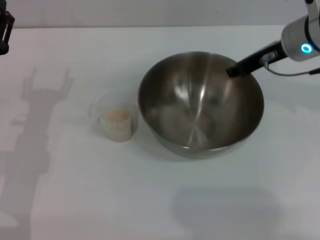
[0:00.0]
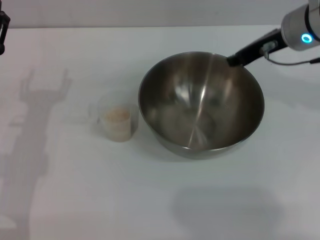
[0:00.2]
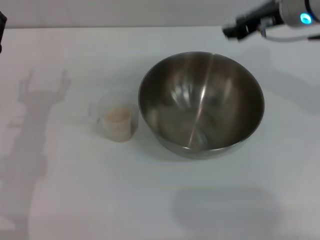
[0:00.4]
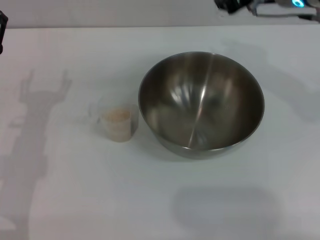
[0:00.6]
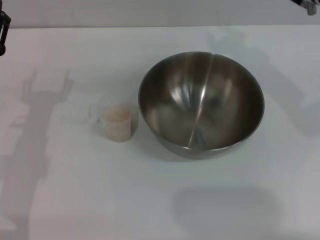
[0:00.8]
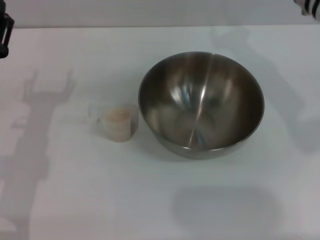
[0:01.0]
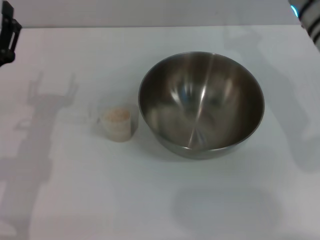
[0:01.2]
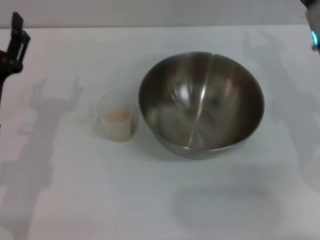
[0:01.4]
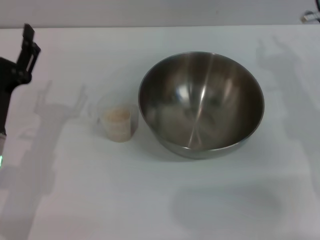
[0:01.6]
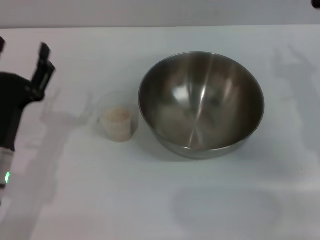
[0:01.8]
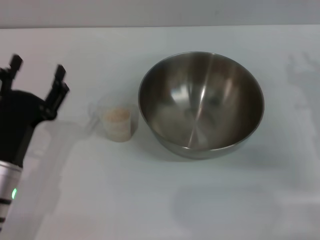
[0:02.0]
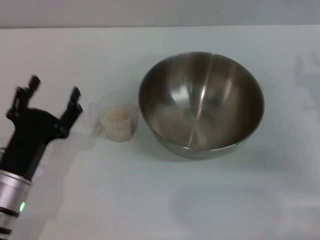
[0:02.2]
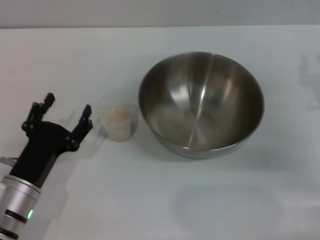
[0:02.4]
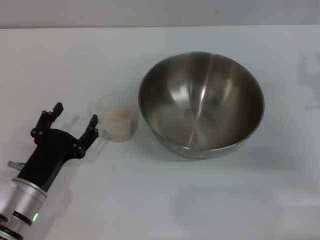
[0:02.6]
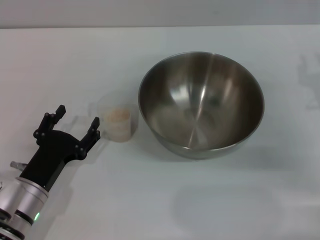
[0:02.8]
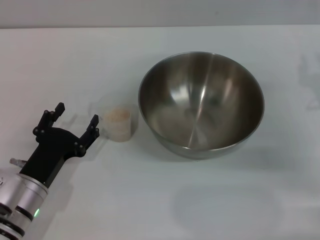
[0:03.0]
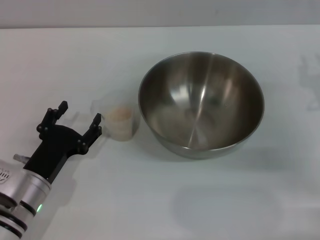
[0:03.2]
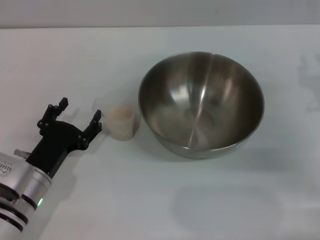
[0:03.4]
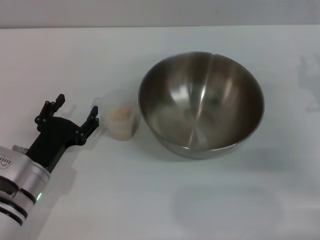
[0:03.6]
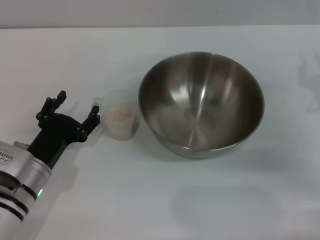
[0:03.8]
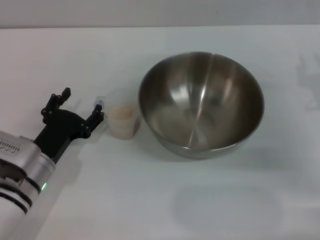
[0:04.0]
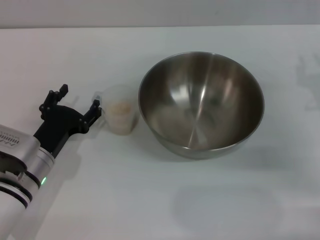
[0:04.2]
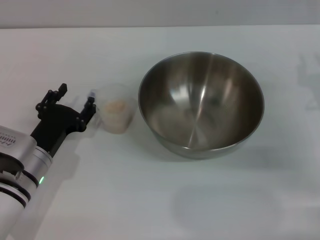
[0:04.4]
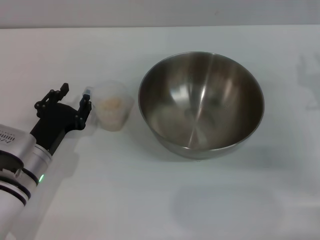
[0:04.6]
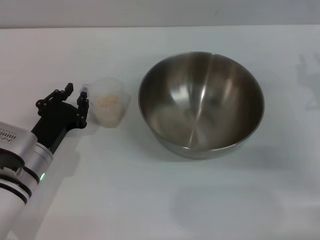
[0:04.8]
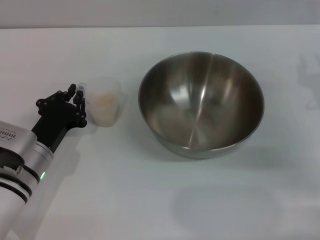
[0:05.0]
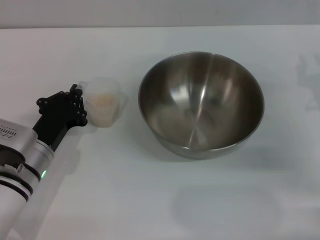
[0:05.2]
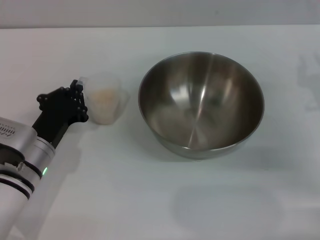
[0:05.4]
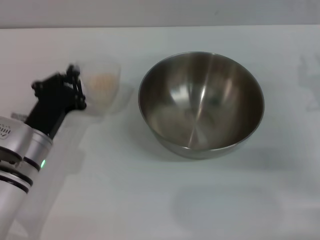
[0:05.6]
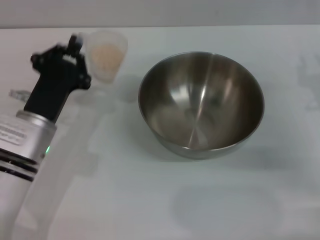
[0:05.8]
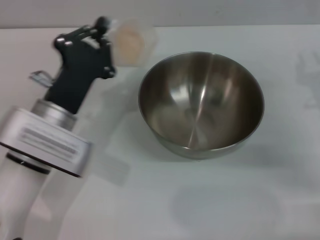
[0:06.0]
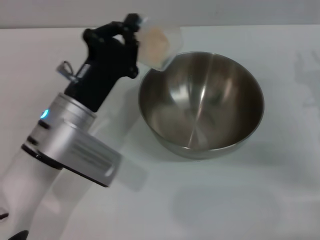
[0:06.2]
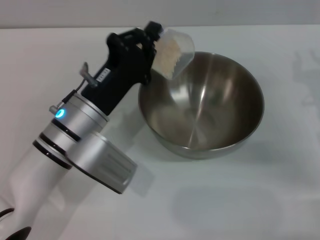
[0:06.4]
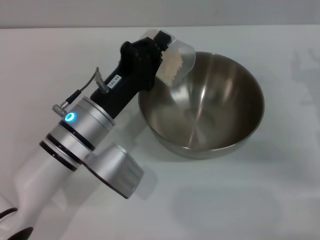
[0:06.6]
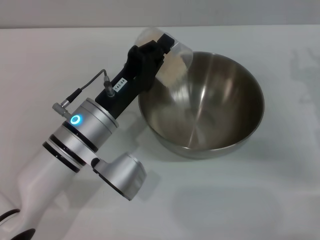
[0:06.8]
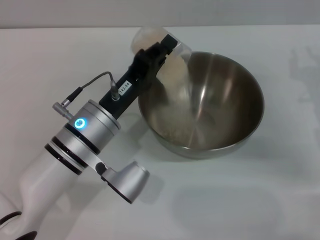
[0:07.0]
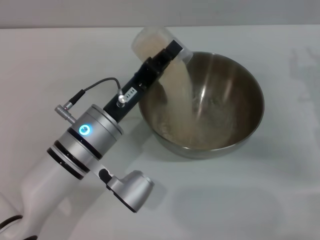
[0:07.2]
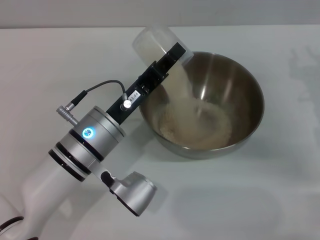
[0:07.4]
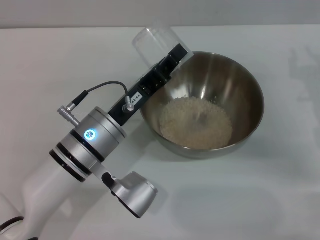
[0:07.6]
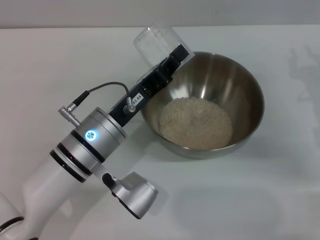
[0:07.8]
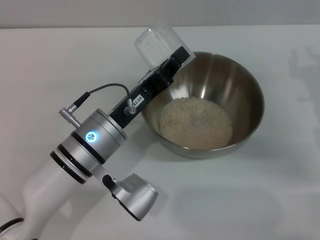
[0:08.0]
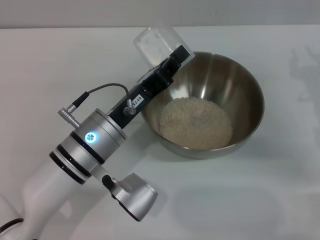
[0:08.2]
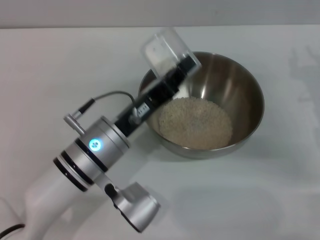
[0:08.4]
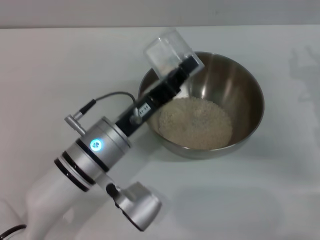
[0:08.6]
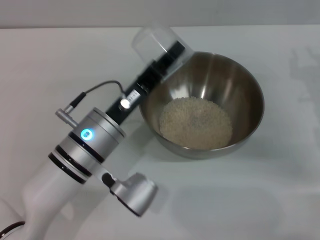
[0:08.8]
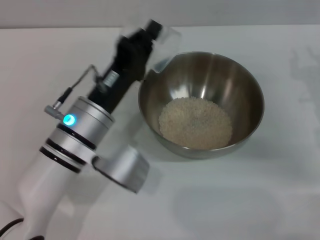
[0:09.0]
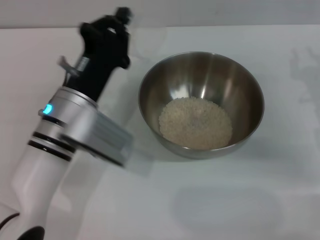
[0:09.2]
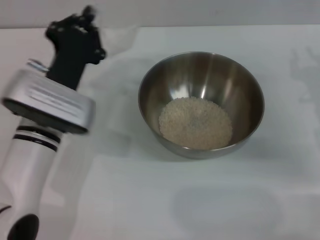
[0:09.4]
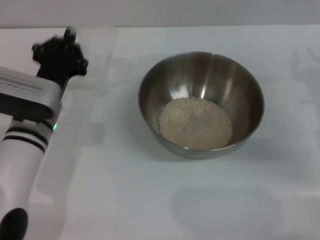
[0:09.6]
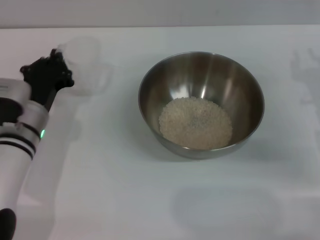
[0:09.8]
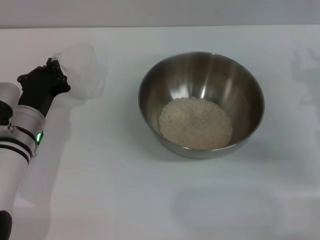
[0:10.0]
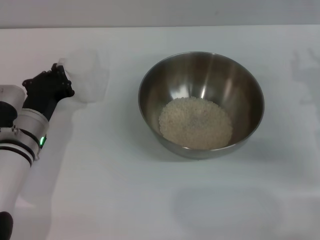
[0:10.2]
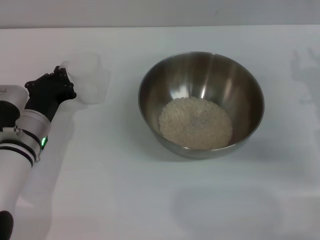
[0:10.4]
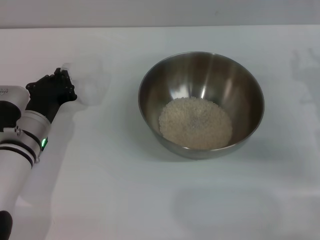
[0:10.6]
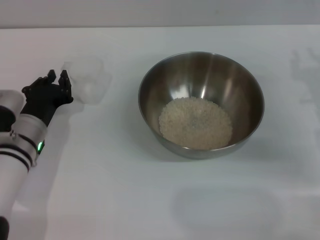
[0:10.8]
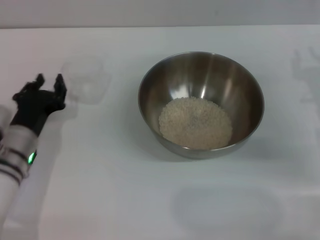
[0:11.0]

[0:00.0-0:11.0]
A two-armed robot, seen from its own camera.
Task of the whole recording: Place the bowl in the middle of the table with one hand and pour the rice from the grain cup into it with the other hand.
Step, 0:00.6 to 0:05.8: Pick up the cup with rice in it with the left gripper.
Step, 0:06.2 to 0:07.6: Pour the rice from the cup into the bowl with the left gripper.
Step, 0:08.0 to 0:11.0: Place the cup on the table with the left gripper.
0:00.0 to 0:01.6: The right gripper travels backward by approximately 5 cm.
0:01.6 to 0:03.2: The left gripper moves downward, some 5 cm, while the right gripper is displaced to the right by approximately 5 cm.
0:03.2 to 0:04.8: The left gripper closes.
0:04.8 to 0:06.2: The left gripper heads upward and to the right, covering some 10 cm, and closes.
0:07.8 to 0:09.4: The left gripper ends up about 5 cm from where it was.
0:09.4 to 0:11.0: The left gripper is displaced to the left and downward by approximately 10 cm.

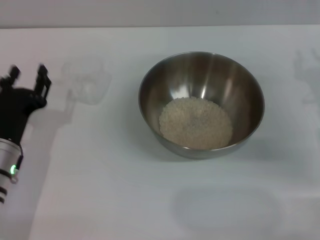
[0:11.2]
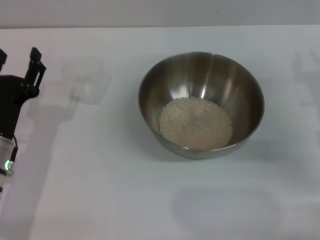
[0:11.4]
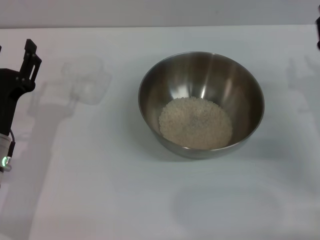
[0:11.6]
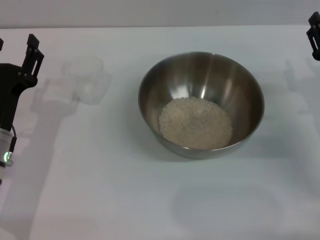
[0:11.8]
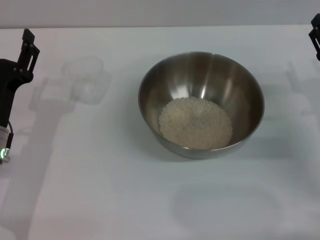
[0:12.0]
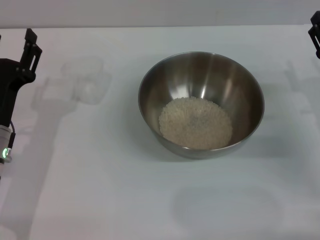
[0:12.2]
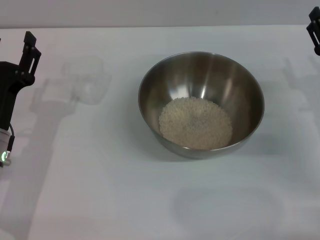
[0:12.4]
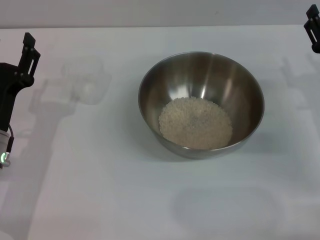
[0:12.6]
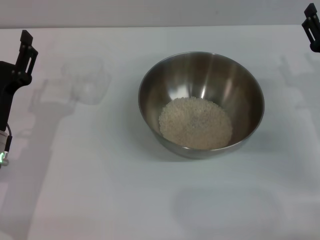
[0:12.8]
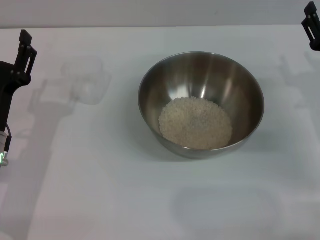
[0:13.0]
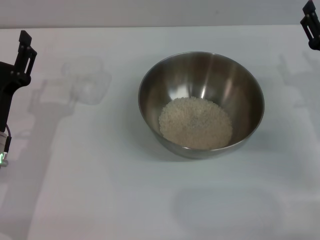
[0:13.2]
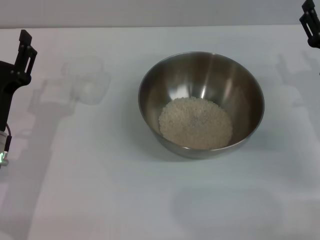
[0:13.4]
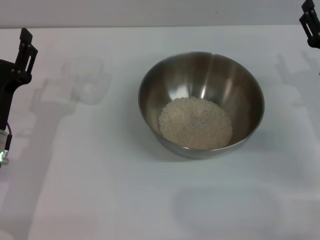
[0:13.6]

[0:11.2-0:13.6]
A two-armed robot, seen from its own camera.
Task of the whole recording: Place the bowl in the middle of the table with one hand and pour the rice from the grain cup into it with the other hand.
0:11.2 to 0:12.4: The left gripper opens its fingers.
0:12.4 to 0:13.6: The grippers stay close to where they were, moving slightly.

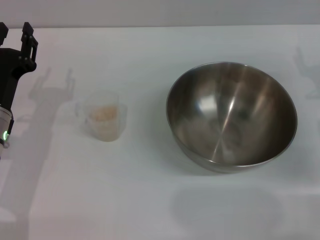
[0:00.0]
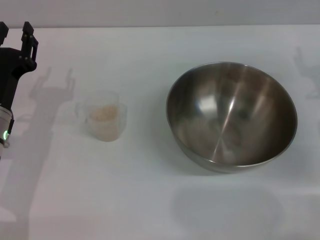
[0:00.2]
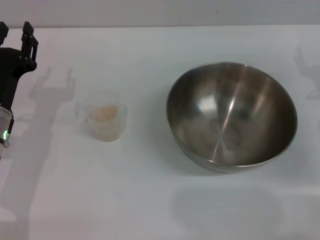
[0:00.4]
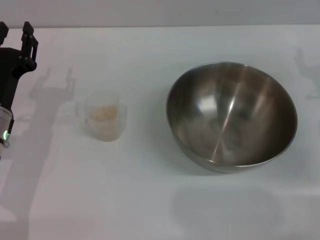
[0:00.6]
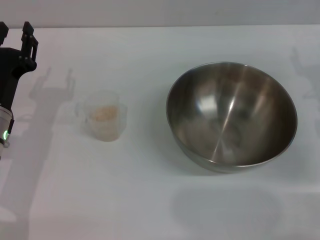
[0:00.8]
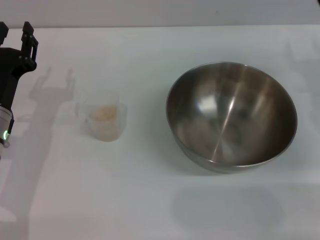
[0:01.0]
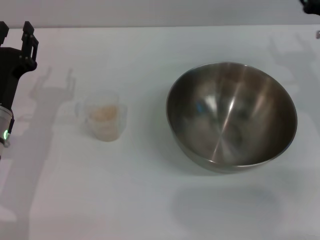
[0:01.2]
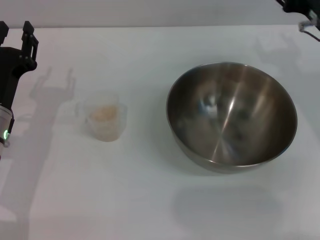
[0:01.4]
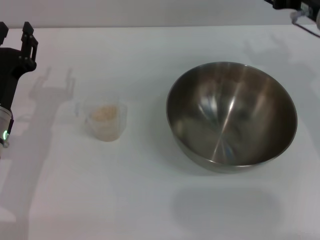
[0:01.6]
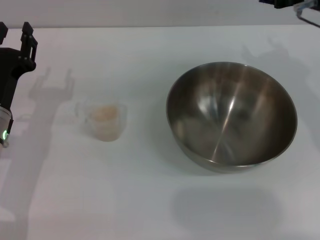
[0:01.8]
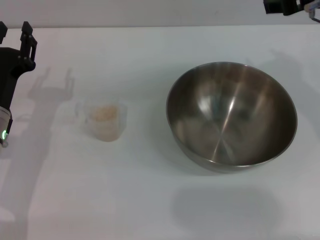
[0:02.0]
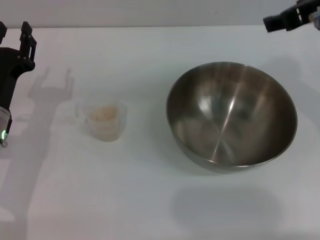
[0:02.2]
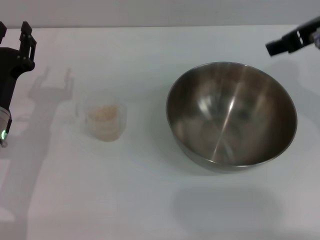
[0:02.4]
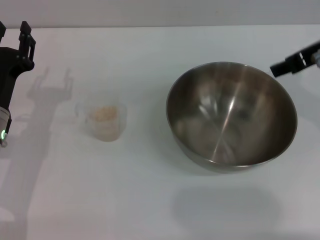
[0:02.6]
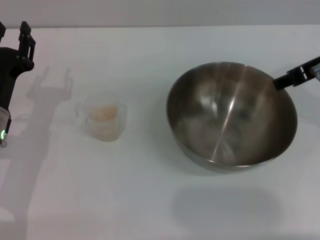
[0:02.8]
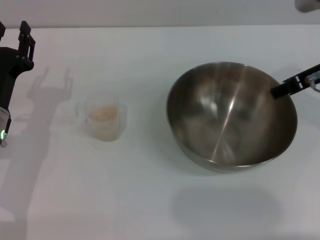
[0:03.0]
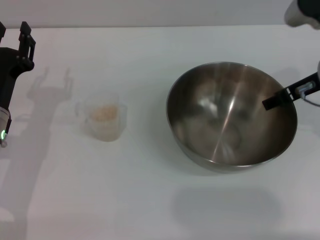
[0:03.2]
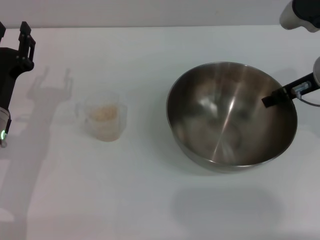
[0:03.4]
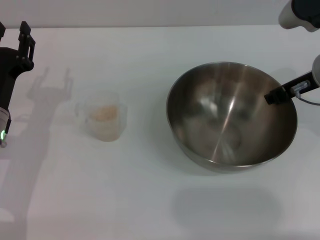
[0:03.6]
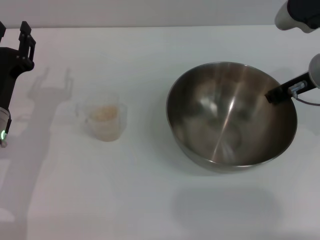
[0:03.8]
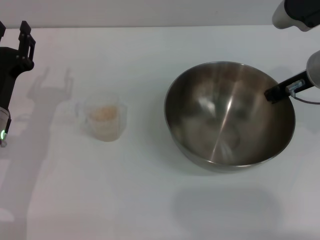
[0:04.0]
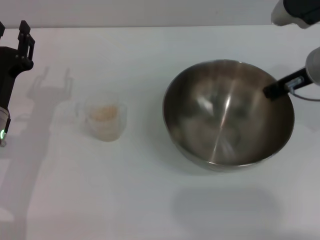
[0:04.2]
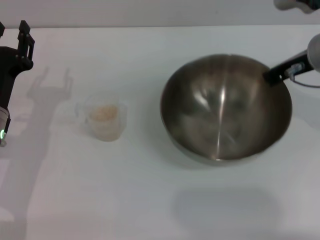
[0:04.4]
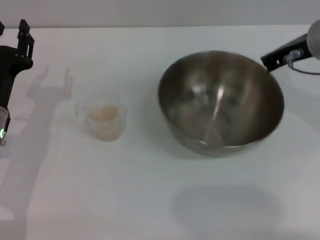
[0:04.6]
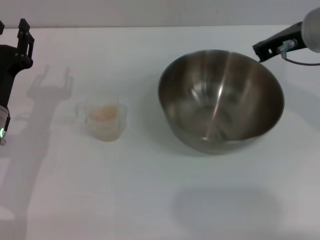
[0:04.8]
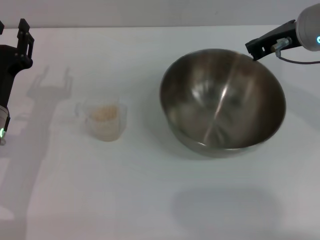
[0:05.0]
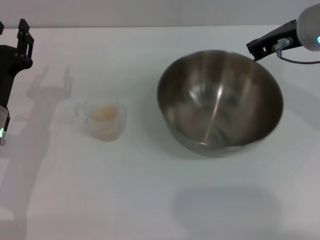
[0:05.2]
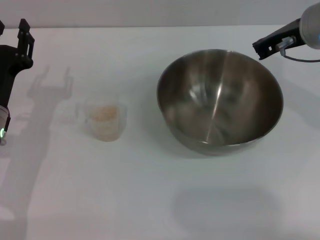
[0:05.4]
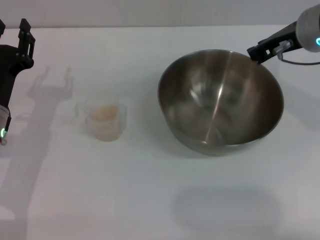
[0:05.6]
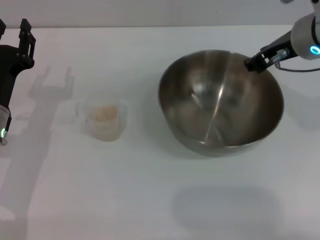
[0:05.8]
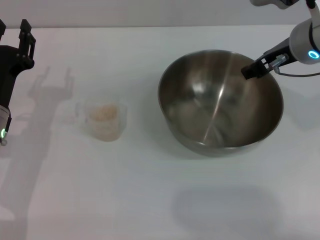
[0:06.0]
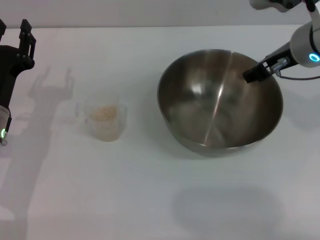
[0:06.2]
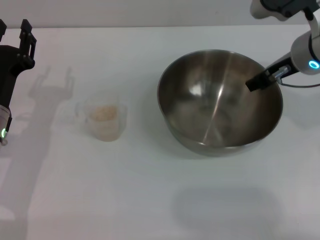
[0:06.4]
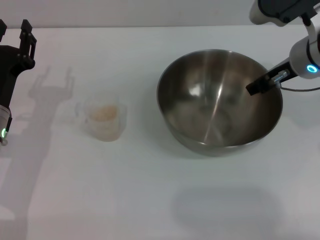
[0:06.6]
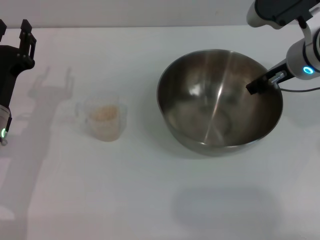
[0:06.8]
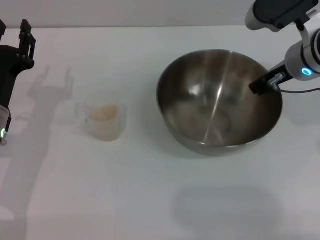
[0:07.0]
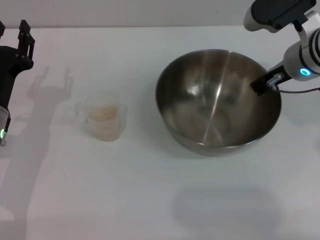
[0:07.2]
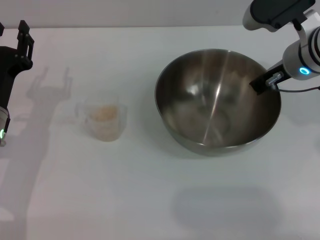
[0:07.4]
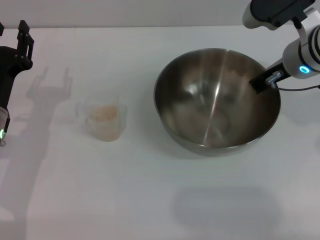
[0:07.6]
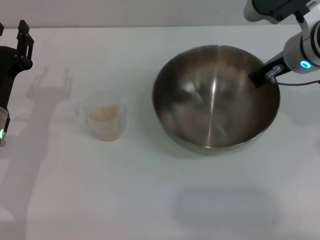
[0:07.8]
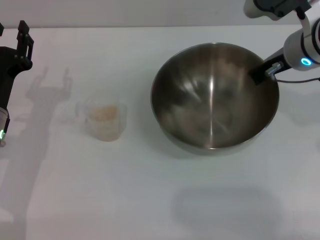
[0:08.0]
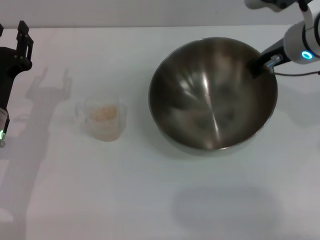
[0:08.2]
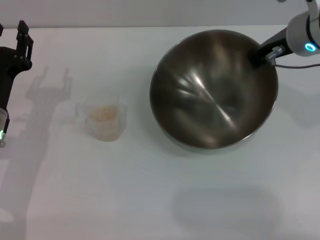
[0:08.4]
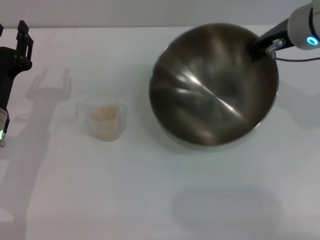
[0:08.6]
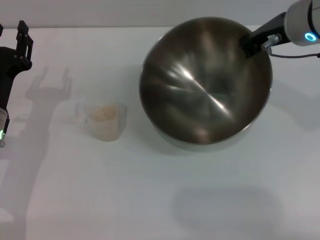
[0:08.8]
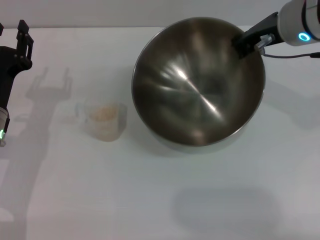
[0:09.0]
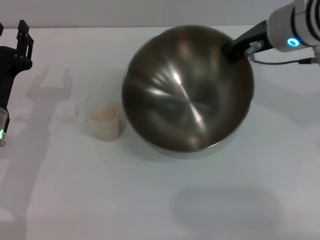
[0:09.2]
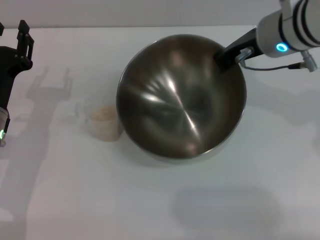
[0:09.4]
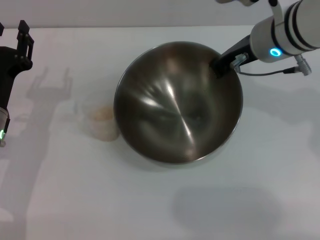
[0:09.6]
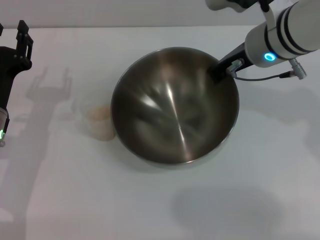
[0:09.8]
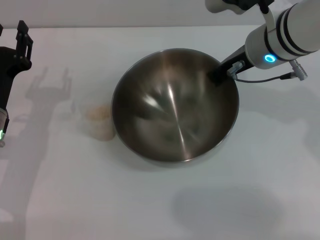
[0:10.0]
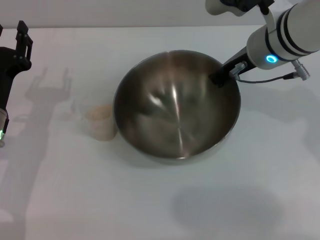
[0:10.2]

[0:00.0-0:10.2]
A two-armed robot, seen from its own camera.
Task of the whole recording: Place the bowl in the middle of the table with one hand and pour the rice from the grain cup into it with the other hand.
Step, 0:00.0 to 0:08.0: Pick up the bowl with the right gripper.
0:00.0 to 0:01.4: The right gripper heads upward and to the left, covering some 10 cm.
0:03.0 to 0:04.4: The right gripper closes up.
0:04.4 to 0:05.8: There are only small adjustments of the grippers.
0:05.8 to 0:07.2: The right gripper opens, then closes again.
0:07.2 to 0:08.8: The right gripper is displaced upward by about 5 cm, and closes up.
